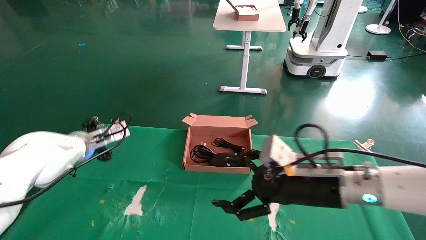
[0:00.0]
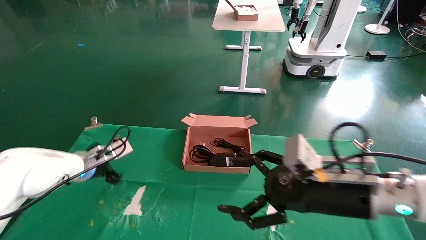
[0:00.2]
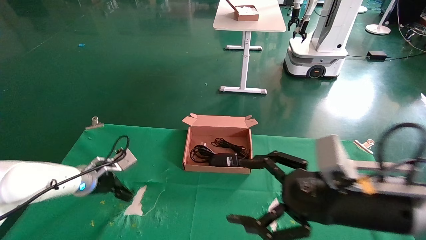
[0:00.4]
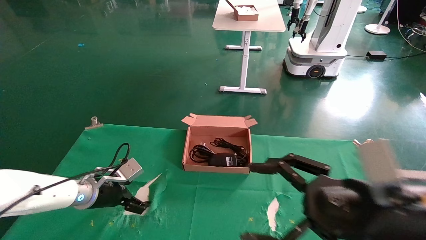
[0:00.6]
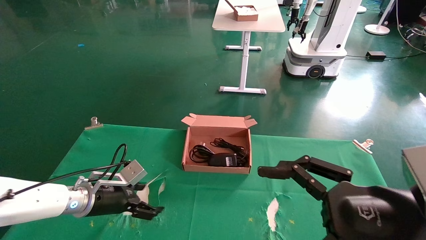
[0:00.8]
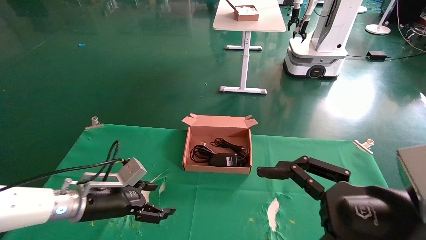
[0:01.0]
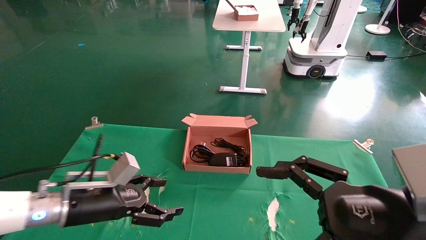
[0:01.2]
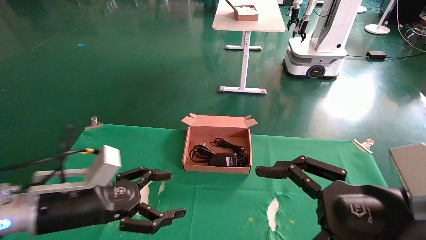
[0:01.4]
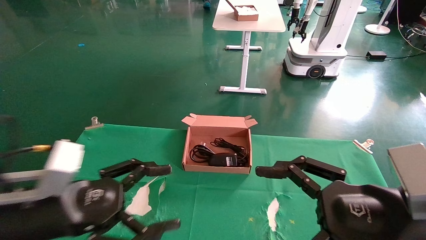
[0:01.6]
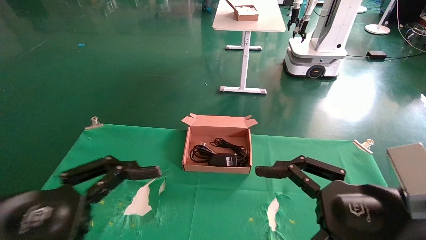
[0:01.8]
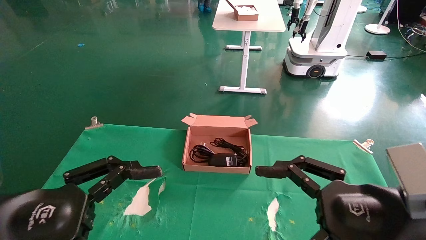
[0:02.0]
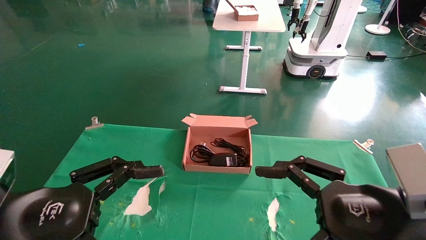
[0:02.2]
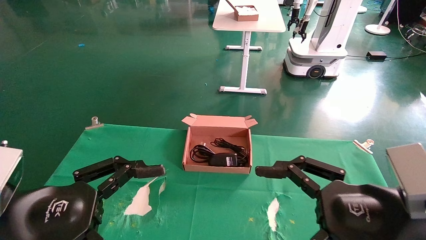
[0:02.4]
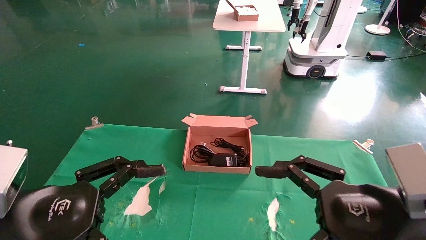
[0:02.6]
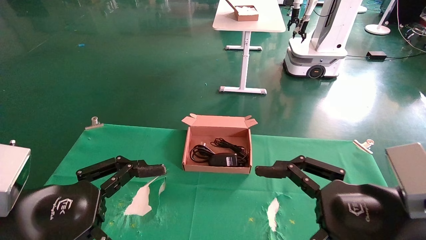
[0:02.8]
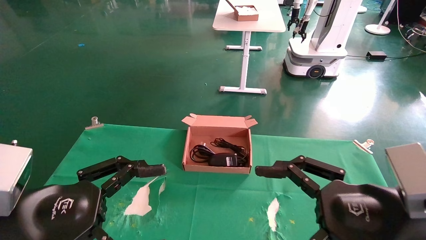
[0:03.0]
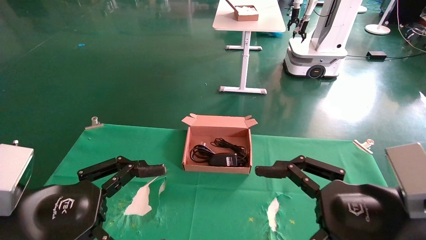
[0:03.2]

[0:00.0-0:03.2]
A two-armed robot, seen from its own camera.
0:00.0 to 0:01.6: The left gripper heads backward, covering approximately 25 cm, while the right gripper goes some 15 cm backward and to the right.
0:01.6 to 0:03.2: The grippers move only a little.
